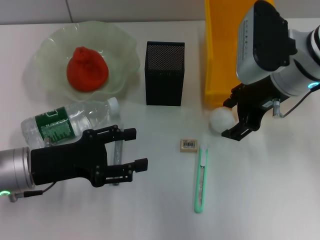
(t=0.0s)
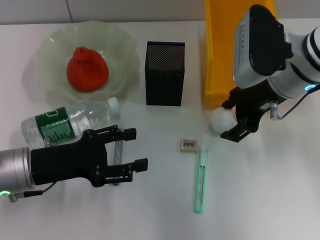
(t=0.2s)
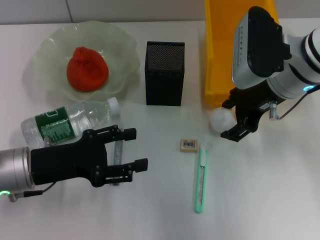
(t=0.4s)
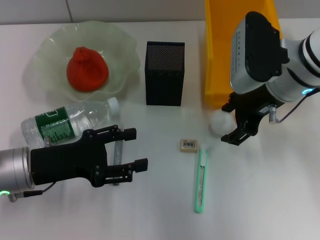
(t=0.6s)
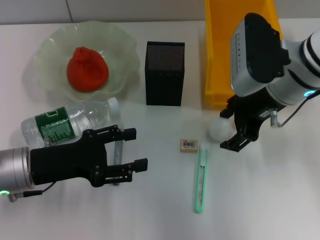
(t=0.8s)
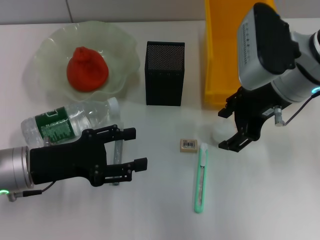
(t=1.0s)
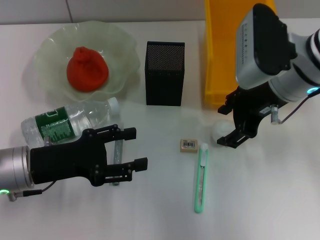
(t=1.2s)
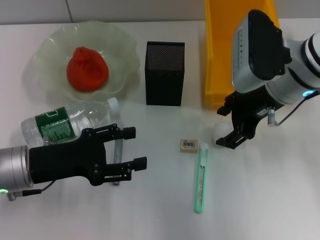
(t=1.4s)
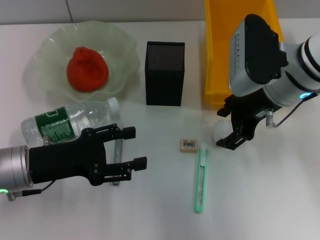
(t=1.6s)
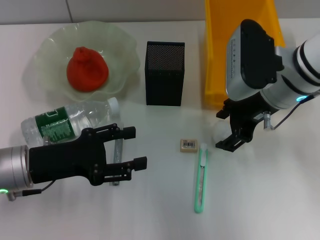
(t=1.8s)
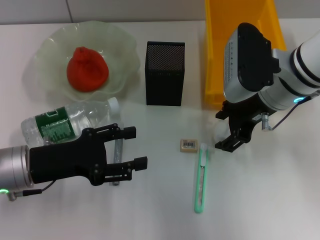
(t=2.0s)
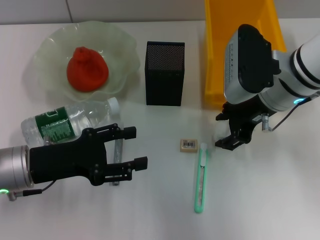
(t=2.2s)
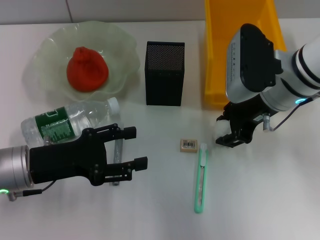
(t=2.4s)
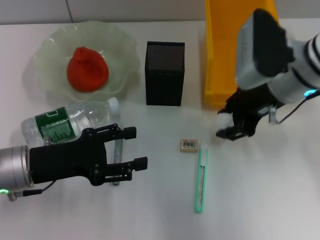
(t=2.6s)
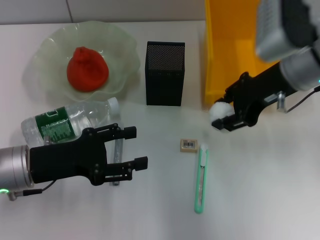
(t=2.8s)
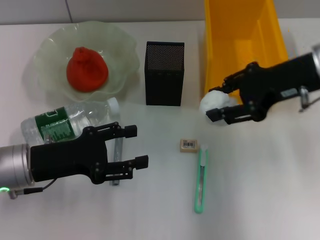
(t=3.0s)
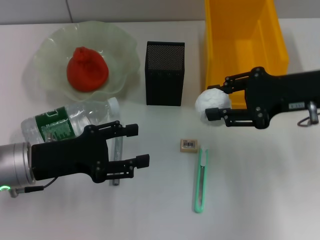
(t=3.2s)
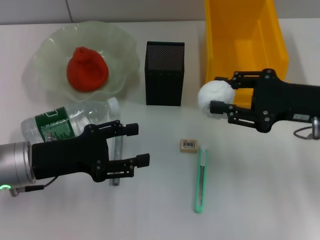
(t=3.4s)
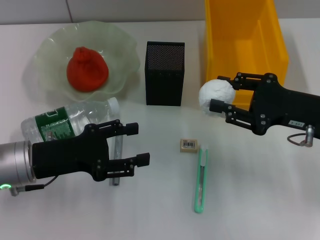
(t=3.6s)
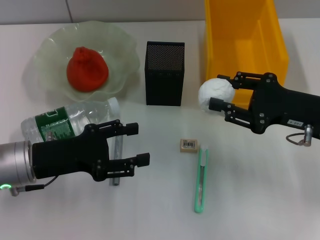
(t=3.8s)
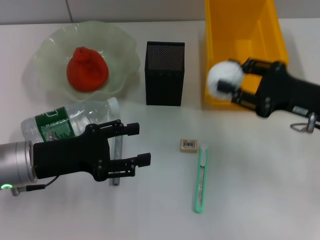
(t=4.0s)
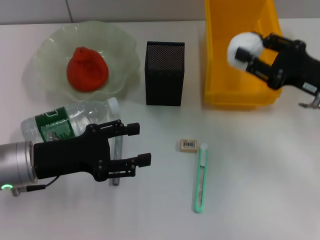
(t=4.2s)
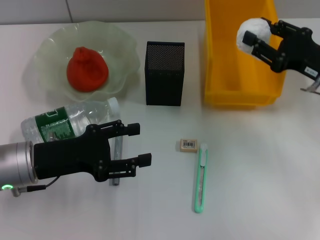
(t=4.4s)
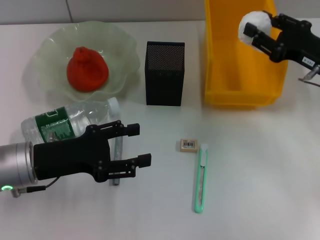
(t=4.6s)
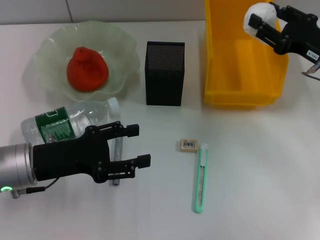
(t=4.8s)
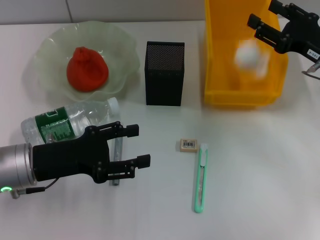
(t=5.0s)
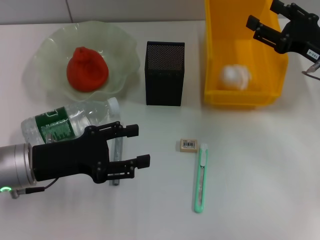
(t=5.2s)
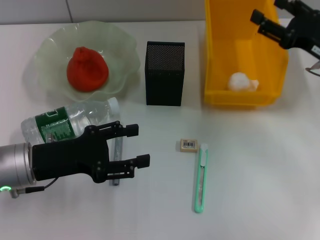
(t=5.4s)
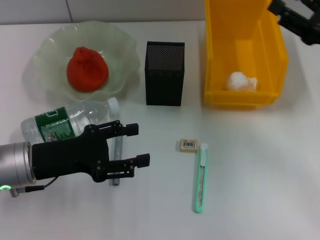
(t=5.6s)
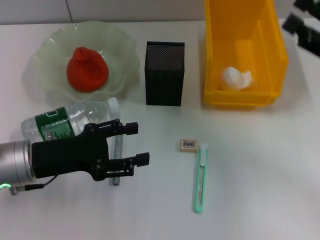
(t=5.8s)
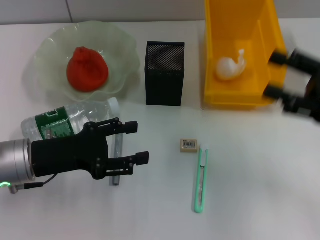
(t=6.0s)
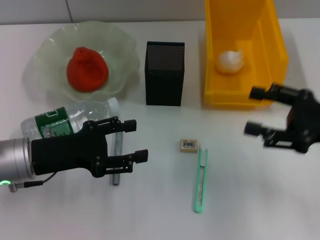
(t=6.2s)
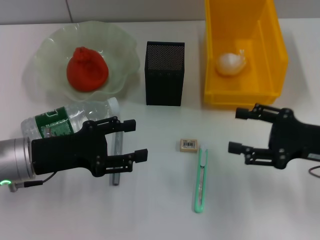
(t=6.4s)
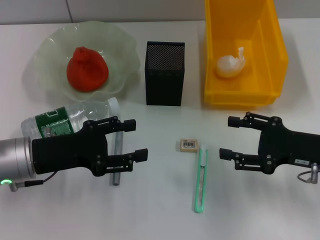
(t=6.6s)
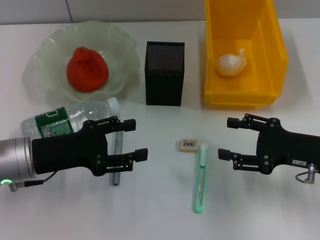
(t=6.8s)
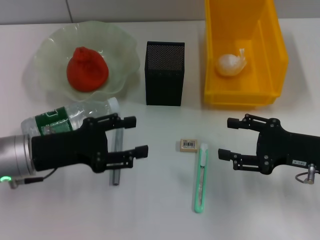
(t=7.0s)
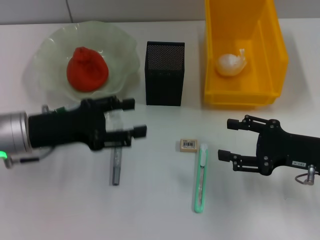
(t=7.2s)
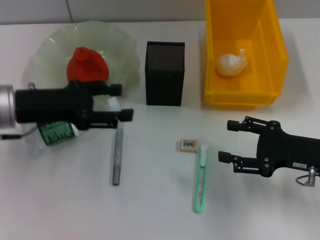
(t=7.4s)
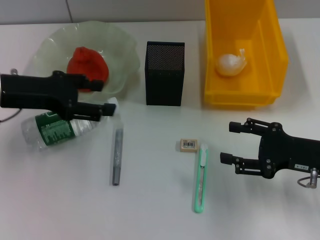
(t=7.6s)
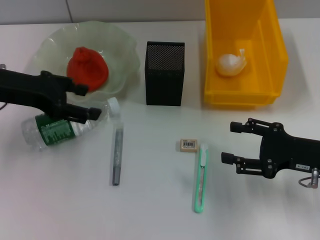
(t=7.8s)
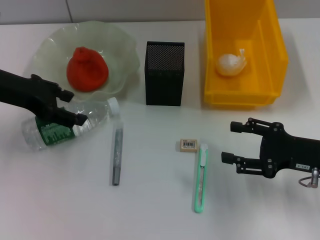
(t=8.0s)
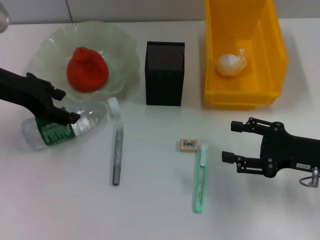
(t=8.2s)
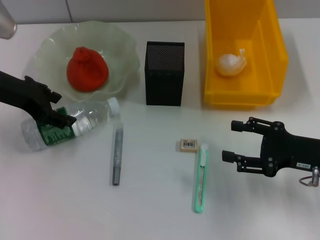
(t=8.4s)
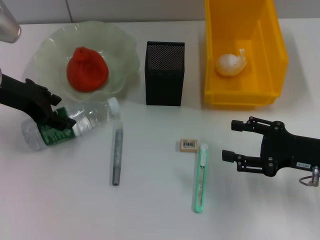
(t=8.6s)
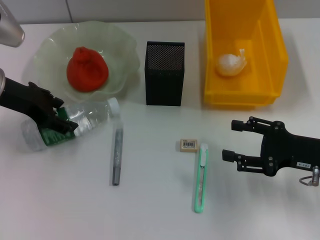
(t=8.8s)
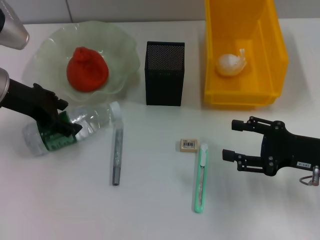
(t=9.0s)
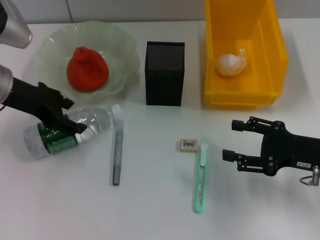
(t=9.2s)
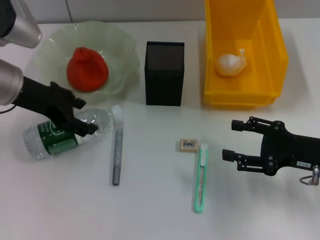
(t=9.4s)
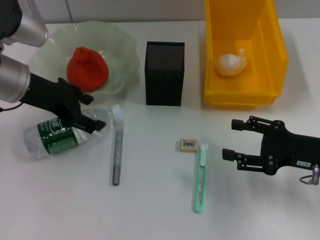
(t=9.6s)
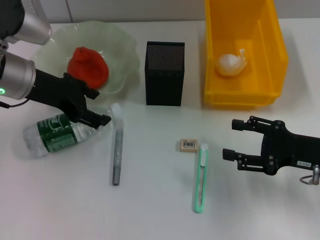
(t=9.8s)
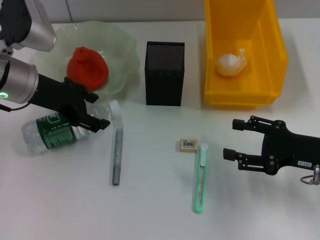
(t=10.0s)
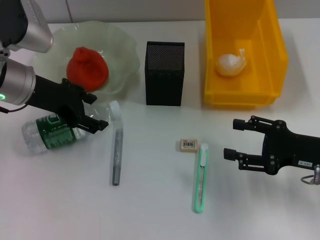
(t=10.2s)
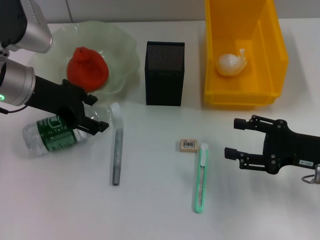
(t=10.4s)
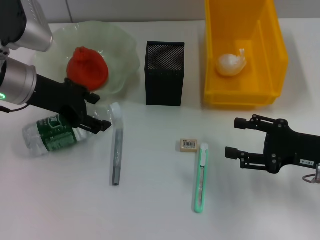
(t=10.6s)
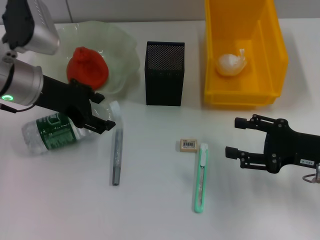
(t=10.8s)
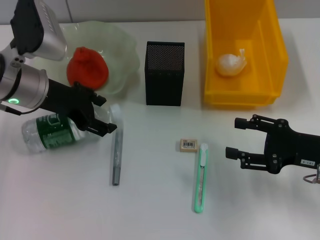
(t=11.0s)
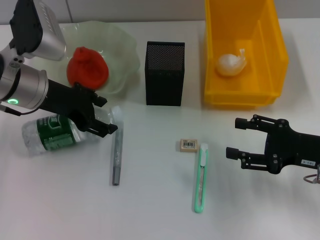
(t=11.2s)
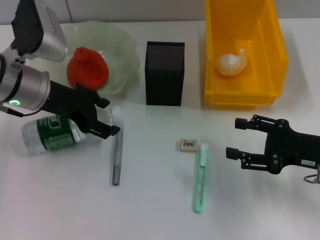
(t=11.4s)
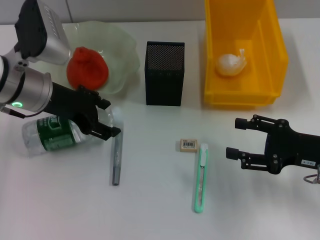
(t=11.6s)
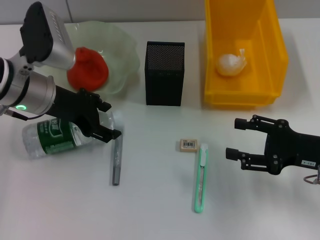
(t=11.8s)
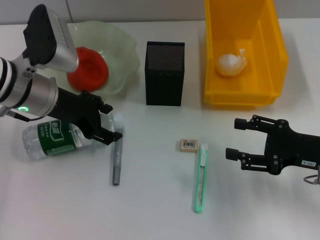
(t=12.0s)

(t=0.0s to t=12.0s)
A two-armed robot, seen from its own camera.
Step, t=0.0s - t=2.4s: Grab the paper ball with the right hand.
Step, t=2.6s - t=5.6s: Place the paper ball into the trash can with the right hand.
t=0.0s - t=1.6s: The grippers move only a little.
t=1.6s - t=3.0s: The right gripper goes roughly 5 cm to the right, and closes up.
t=3.0s - t=4.4s: The right gripper shifts roughly 10 cm downward and to the right.
t=4.4s - t=6.0s: The right gripper shifts about 5 cm backward, and opens.
t=6.0s - t=7.6s: The left gripper is displaced upward and forward by about 10 cm, while the right gripper heads downward, covering roughly 5 cm.
t=9.0s - t=12.0s: The grippers stay close to where they were, moving slightly.

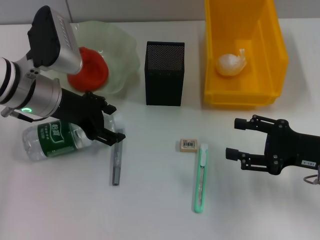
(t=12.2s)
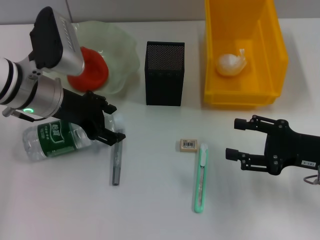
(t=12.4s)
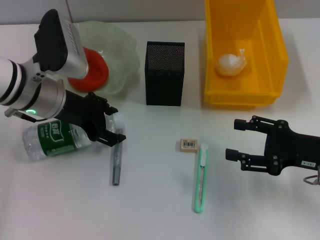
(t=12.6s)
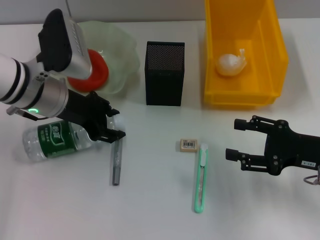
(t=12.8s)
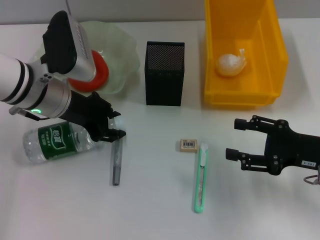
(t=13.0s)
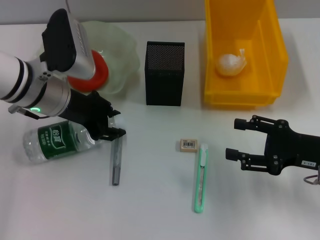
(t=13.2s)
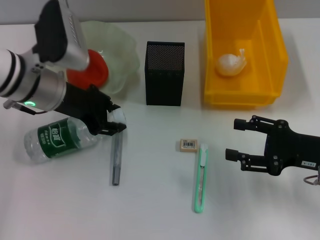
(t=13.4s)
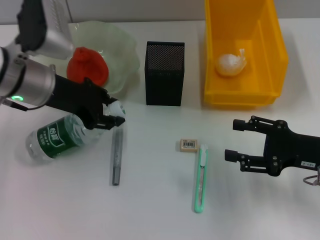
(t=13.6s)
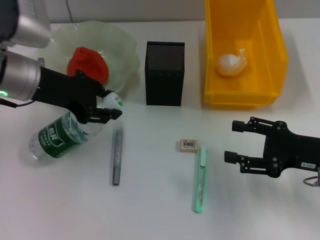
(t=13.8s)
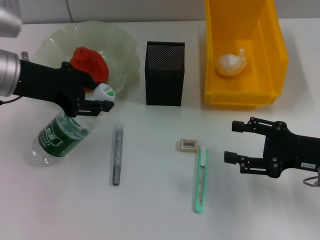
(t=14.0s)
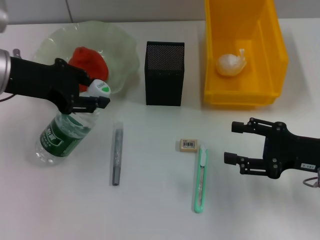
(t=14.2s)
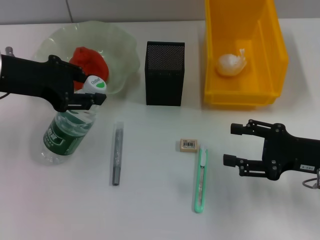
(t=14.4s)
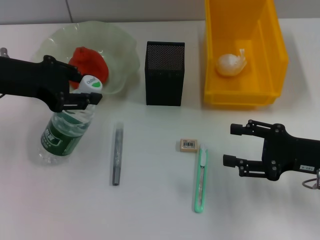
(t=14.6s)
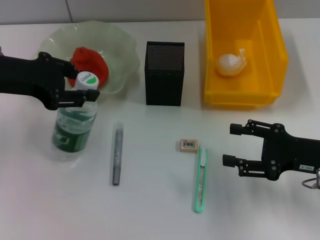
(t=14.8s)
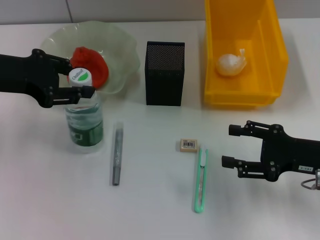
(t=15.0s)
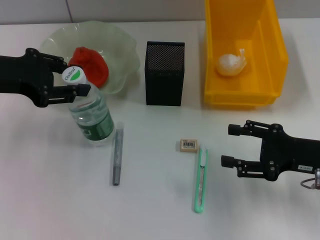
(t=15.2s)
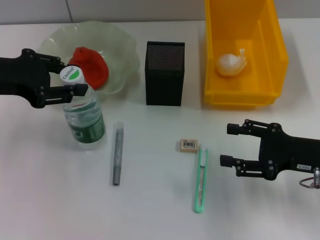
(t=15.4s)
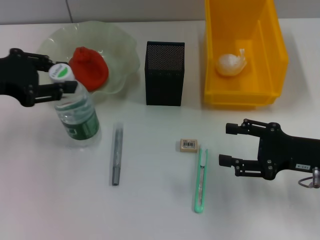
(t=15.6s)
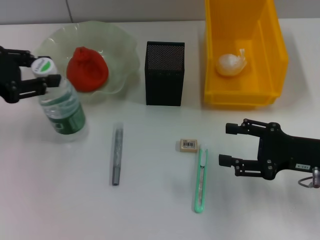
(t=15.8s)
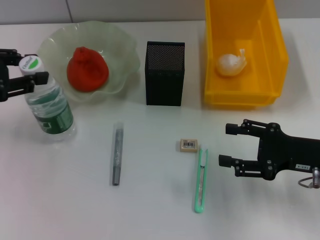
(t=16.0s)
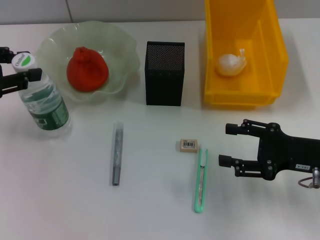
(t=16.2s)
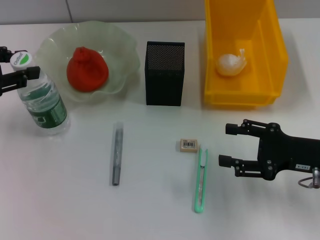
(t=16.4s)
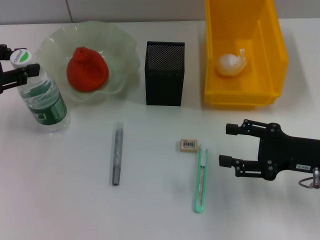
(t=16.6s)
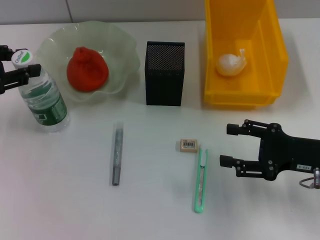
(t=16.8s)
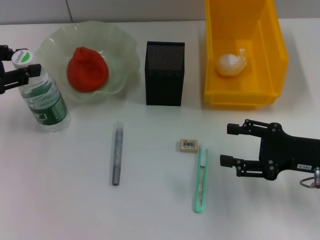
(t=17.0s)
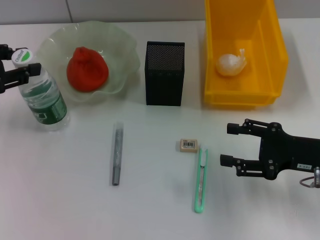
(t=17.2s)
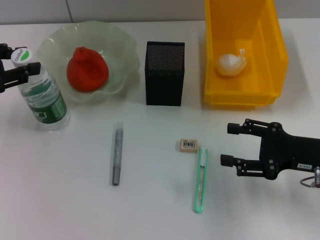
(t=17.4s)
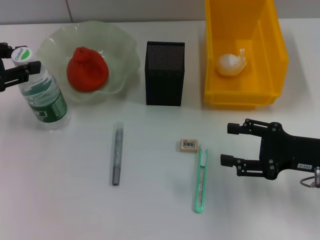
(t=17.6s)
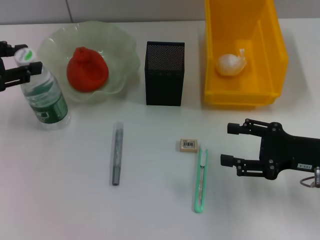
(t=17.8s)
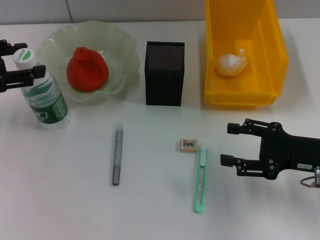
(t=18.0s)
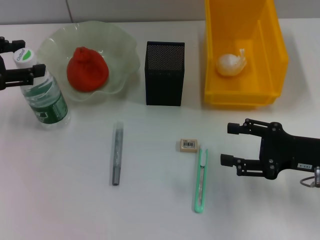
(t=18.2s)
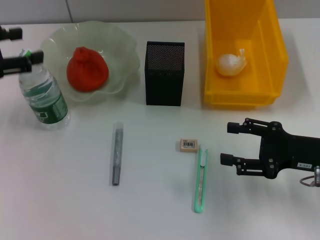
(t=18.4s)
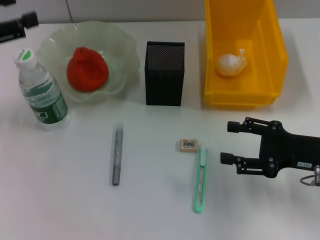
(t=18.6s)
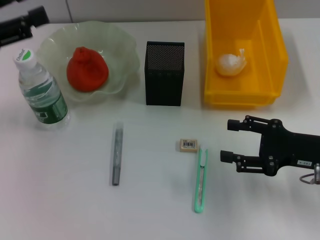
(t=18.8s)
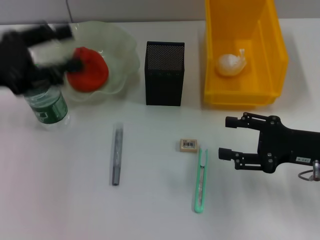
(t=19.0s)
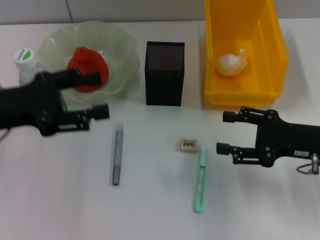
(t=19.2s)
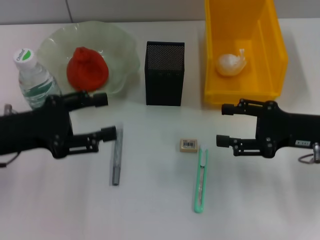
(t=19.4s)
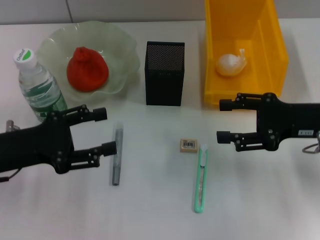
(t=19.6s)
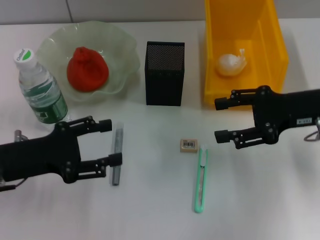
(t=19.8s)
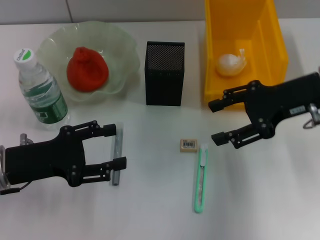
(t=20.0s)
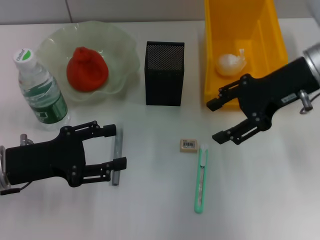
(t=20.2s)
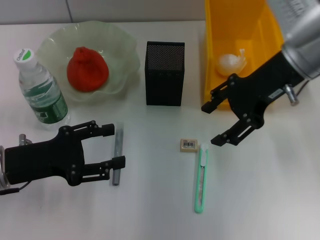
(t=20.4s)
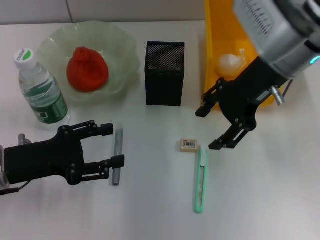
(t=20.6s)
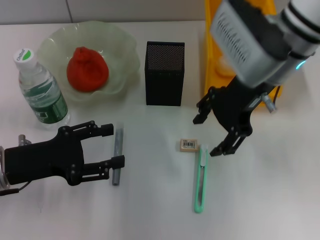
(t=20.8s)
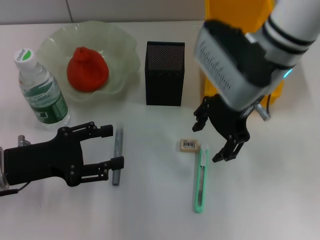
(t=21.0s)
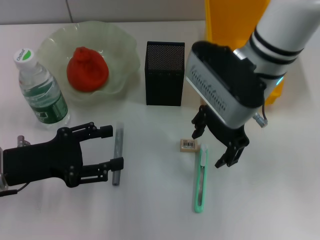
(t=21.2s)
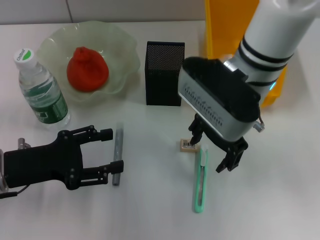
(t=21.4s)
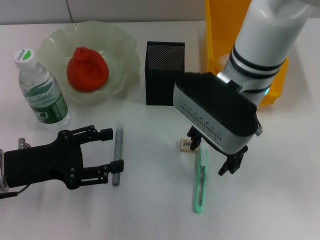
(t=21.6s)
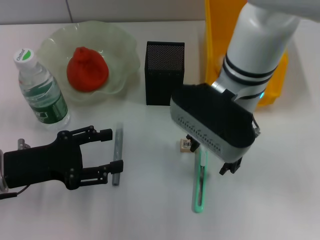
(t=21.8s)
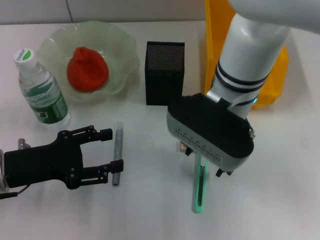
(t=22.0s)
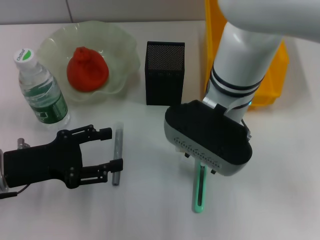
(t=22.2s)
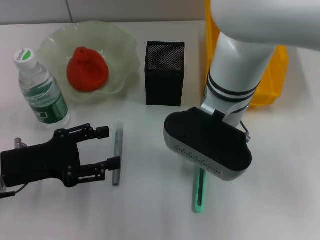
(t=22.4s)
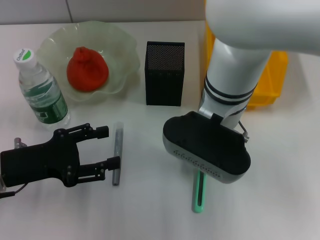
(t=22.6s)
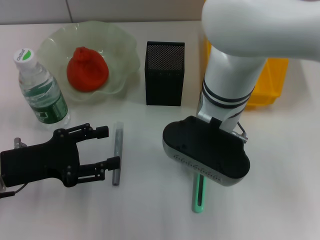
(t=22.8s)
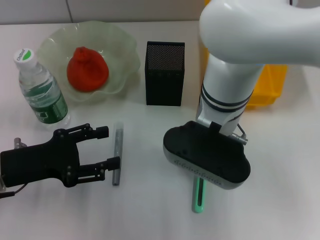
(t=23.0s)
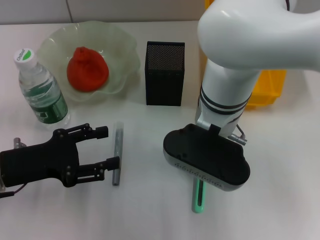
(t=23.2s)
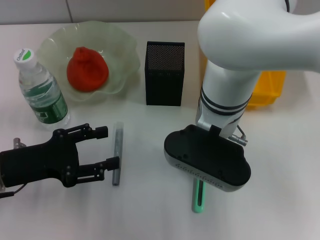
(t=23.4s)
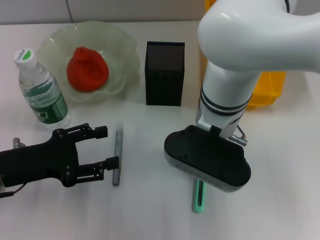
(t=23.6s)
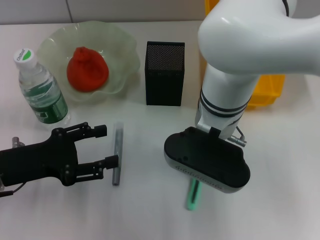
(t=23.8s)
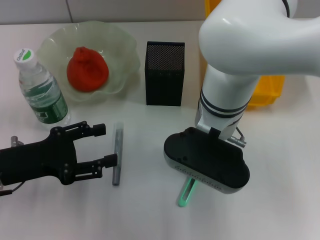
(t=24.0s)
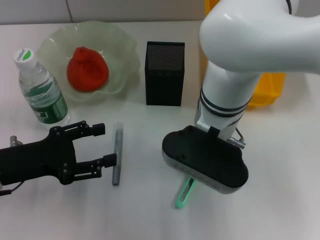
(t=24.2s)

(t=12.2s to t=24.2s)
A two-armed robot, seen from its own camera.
Step, t=13.0s - t=18.0s: Place the water bottle on the table with the left hand.
Step, t=18.2s - t=23.8s: Grab the blue utility knife with the right hand.
t=12.2s - t=13.8s: The left gripper closes up.
t=13.8s - t=15.2s: The left gripper heads to the left, covering some 5 cm.
t=15.2s - t=16.6s: The left gripper moves to the left, roughly 5 cm.
t=16.6s - t=18.2s: Both grippers stay put.
t=18.2s - t=19.8s: The left gripper goes roughly 15 cm downward, to the right and backward; the right gripper heads upward and forward, covering about 10 cm.
t=19.8s - t=21.2s: The right gripper travels to the left by some 15 cm.
t=21.2s - t=22.6s: The right gripper shifts by roughly 5 cm, and closes up.
t=22.6s - t=24.2s: The right gripper closes its fingers.
